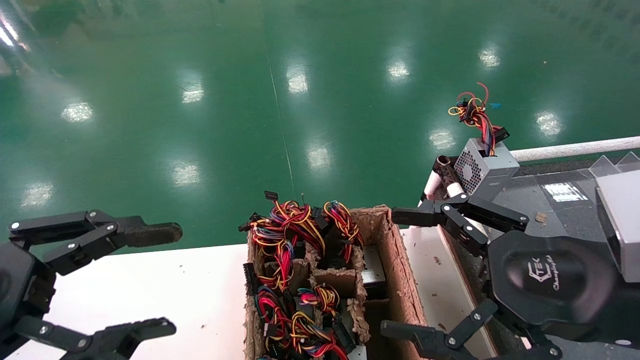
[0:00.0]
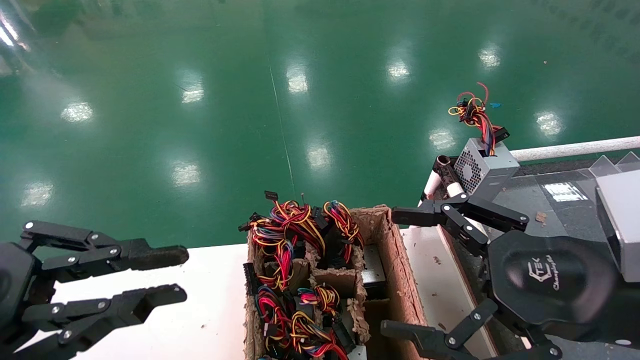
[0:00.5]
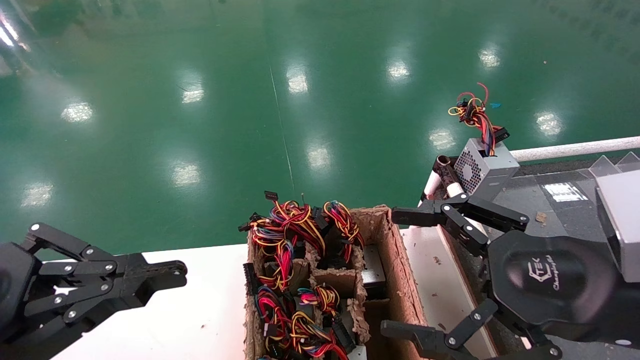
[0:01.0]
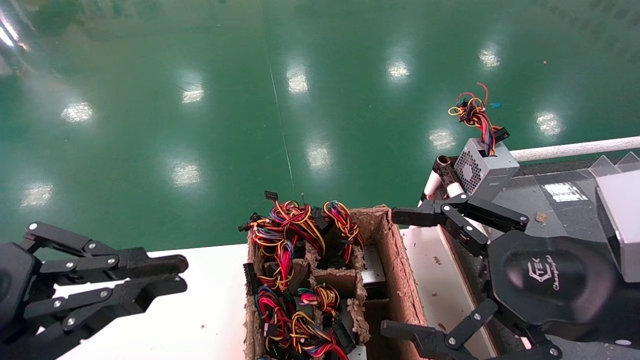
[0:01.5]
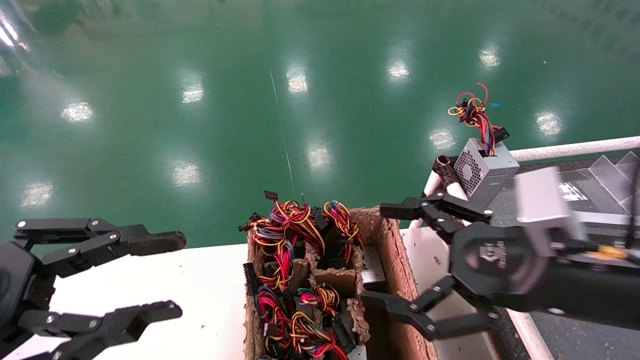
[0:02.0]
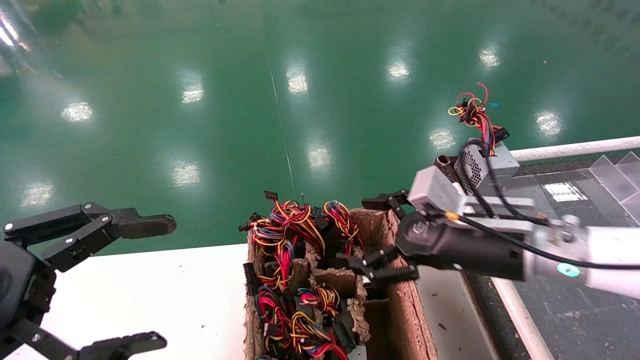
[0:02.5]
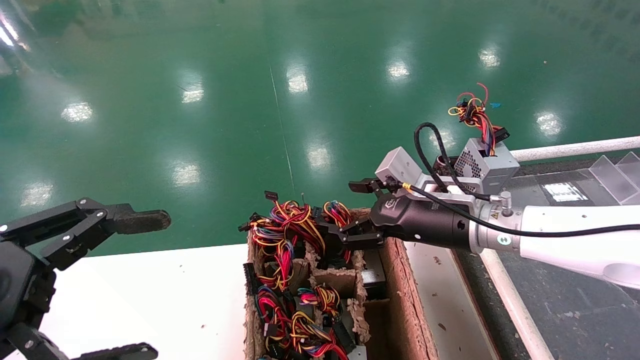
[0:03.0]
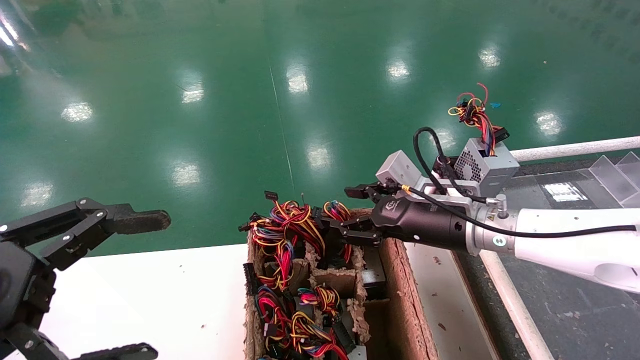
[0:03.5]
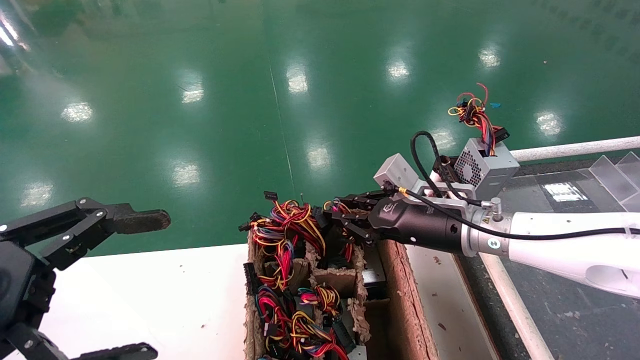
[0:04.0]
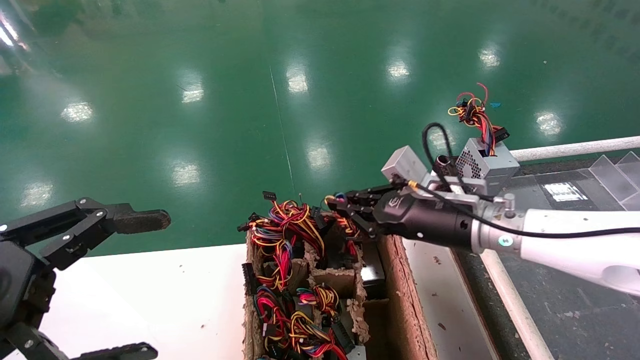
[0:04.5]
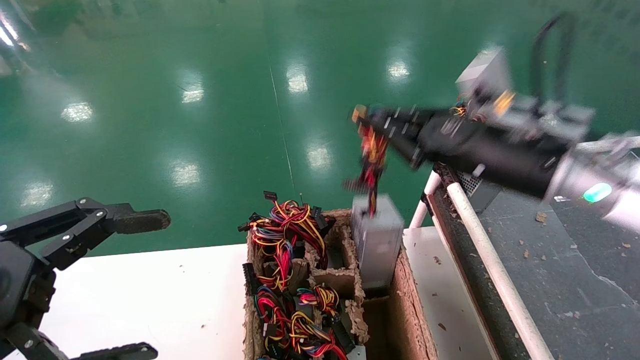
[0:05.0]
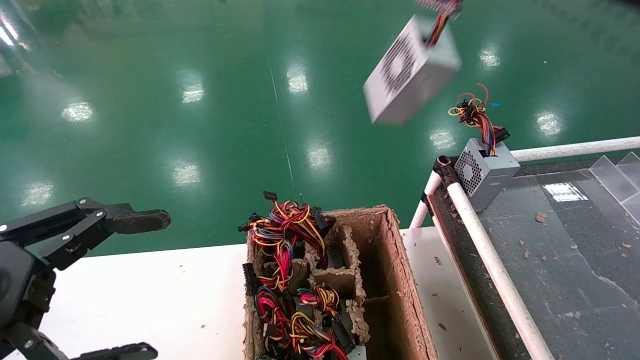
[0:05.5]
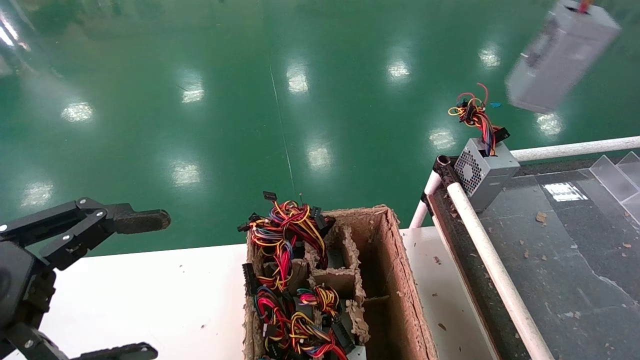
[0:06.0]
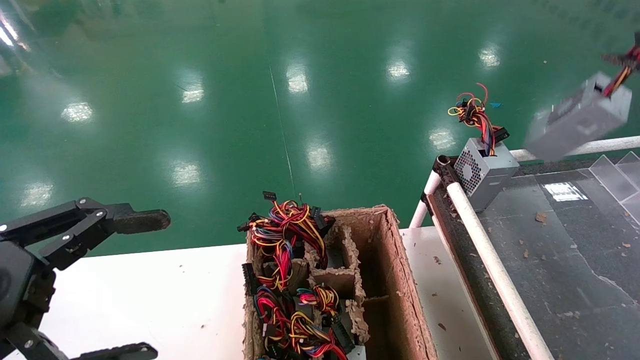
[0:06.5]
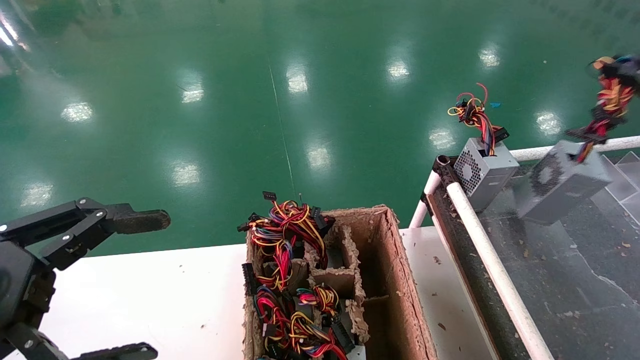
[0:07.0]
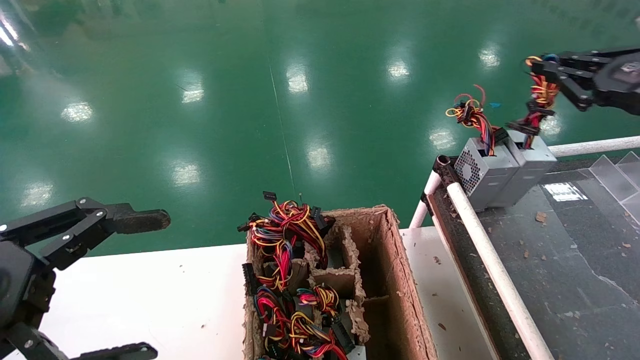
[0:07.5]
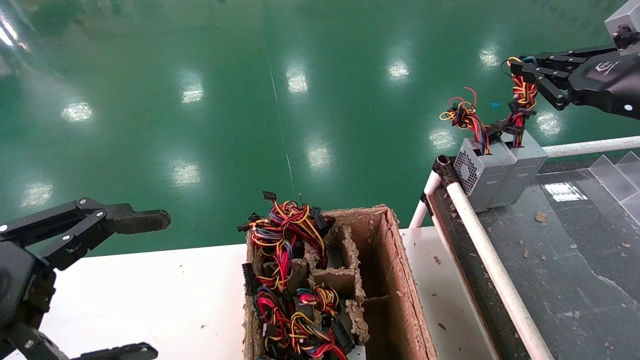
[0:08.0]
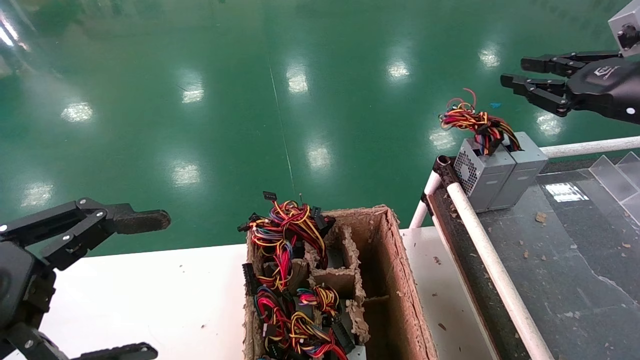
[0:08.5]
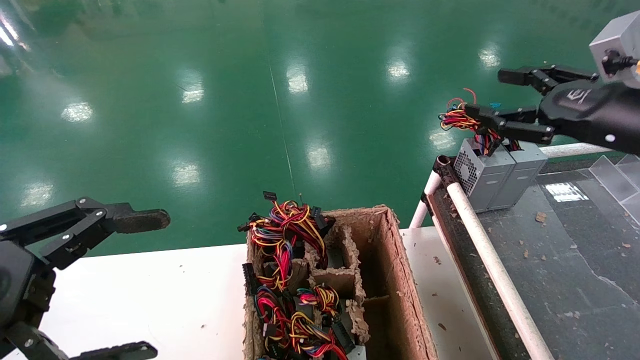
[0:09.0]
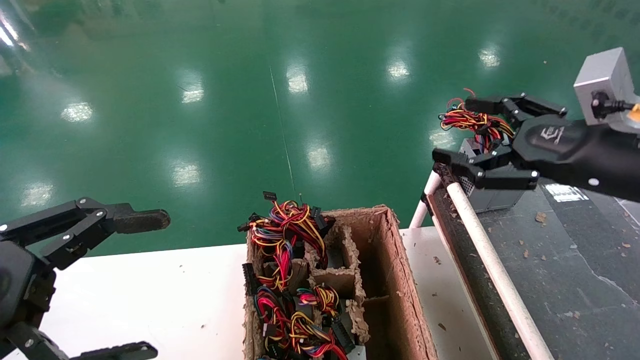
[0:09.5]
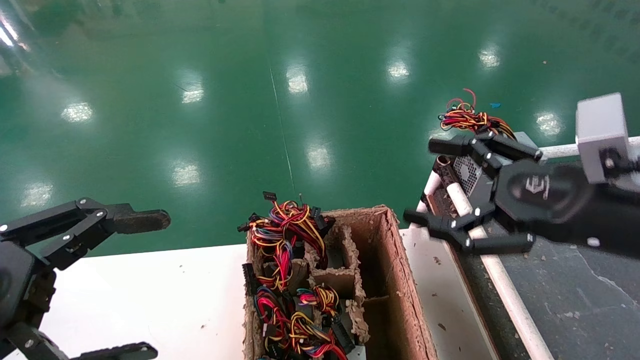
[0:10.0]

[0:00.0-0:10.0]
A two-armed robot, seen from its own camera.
Step, 0:01.5 to 0:05.0: Grab and lift the power supply from the large box.
Step, 0:05.5 to 0:08.0: Place the power supply on the operating table.
0:00.0 to 0:02.0: The grippers make only small movements.
0:02.0 to 0:04.0: The right gripper shifts about 15 cm forward and to the left, and closes, while the left gripper opens.
0:04.0 to 0:06.0: The right gripper travels upward and to the right by approximately 35 cm.
0:06.0 to 0:08.0: The right gripper is displaced downward and forward by about 15 cm.
0:08.0 to 0:10.0: The right gripper goes about 20 cm to the left, backward and downward, and opens.
